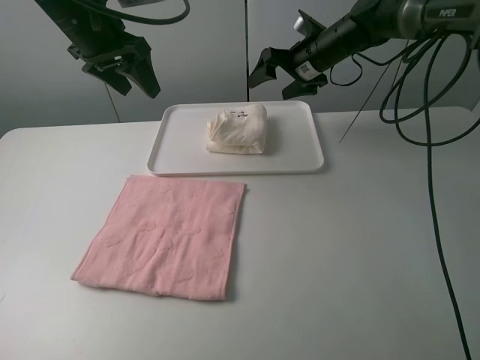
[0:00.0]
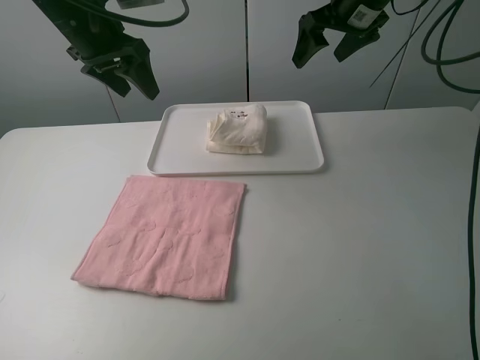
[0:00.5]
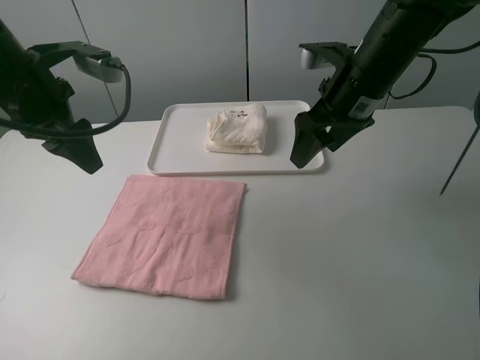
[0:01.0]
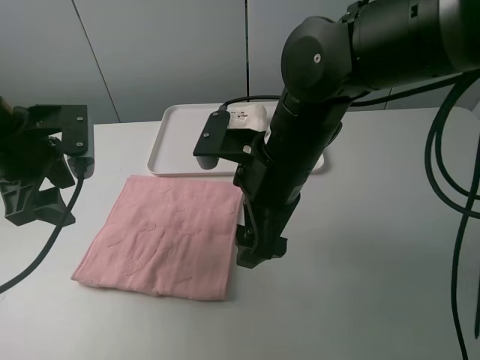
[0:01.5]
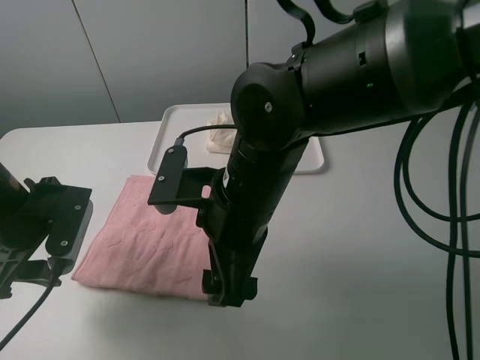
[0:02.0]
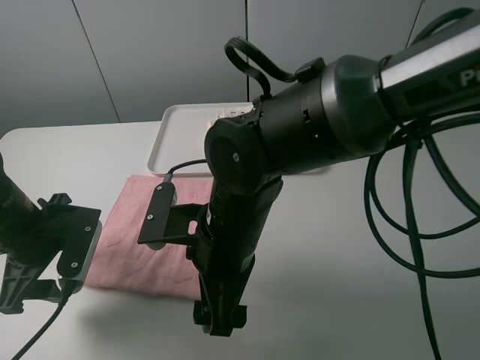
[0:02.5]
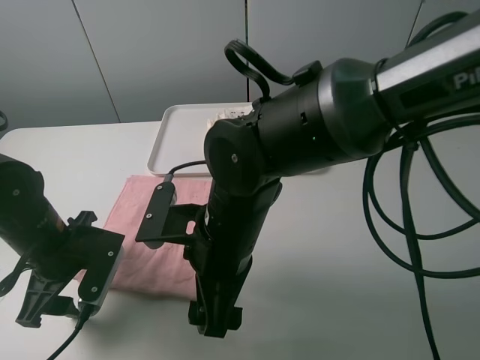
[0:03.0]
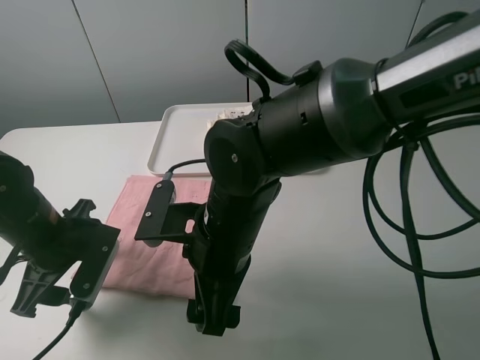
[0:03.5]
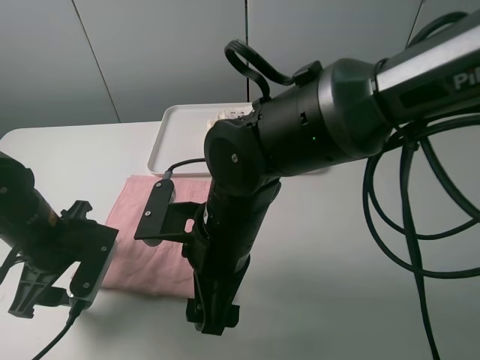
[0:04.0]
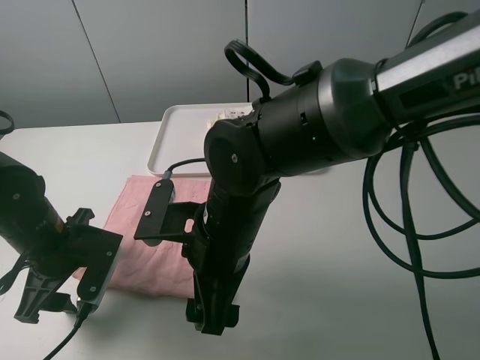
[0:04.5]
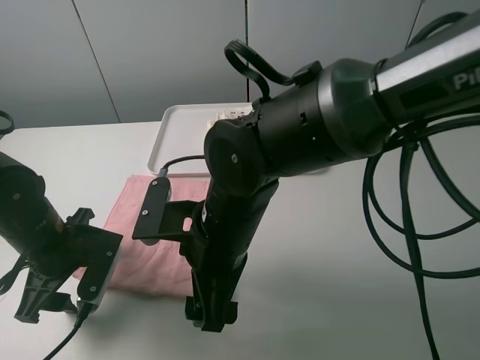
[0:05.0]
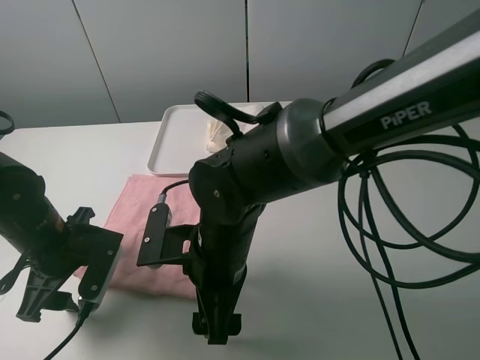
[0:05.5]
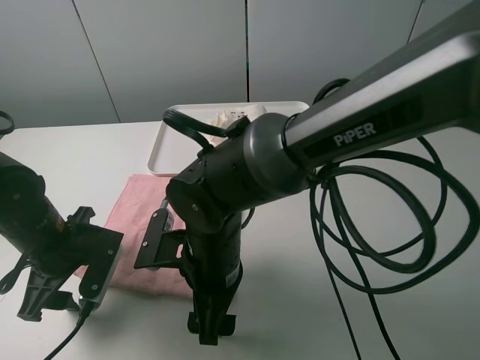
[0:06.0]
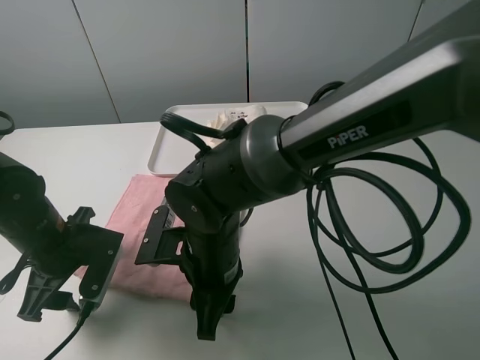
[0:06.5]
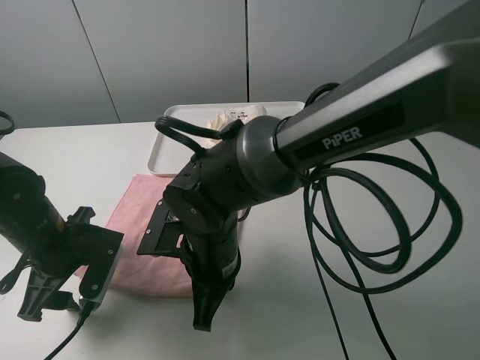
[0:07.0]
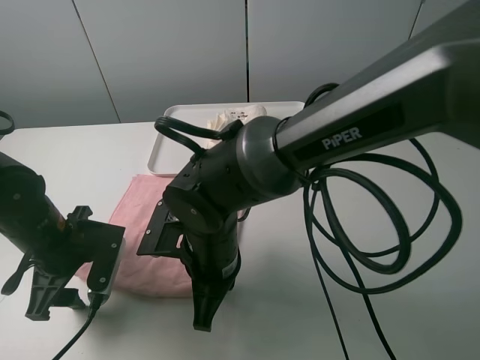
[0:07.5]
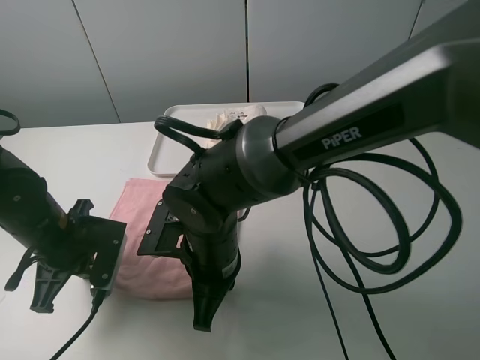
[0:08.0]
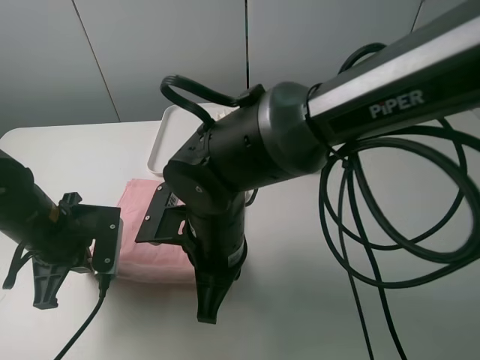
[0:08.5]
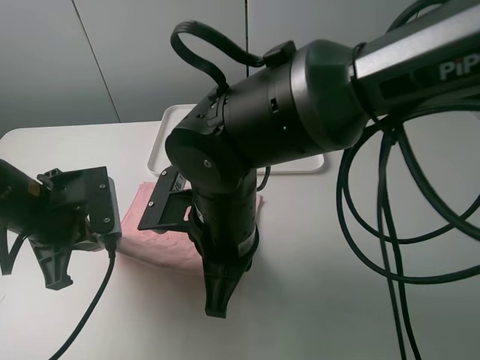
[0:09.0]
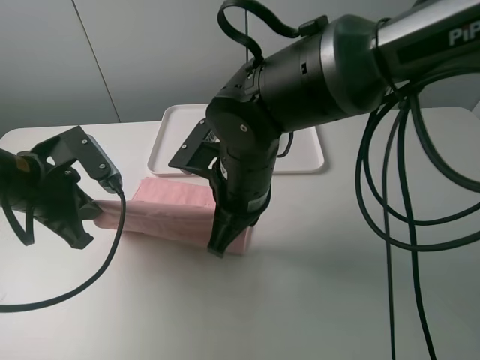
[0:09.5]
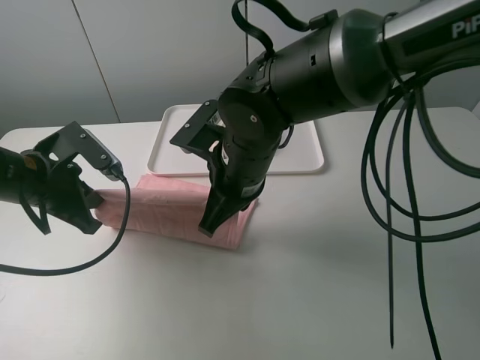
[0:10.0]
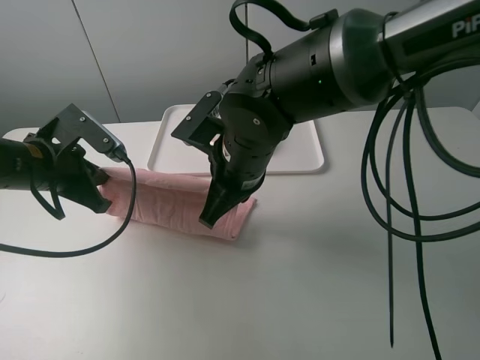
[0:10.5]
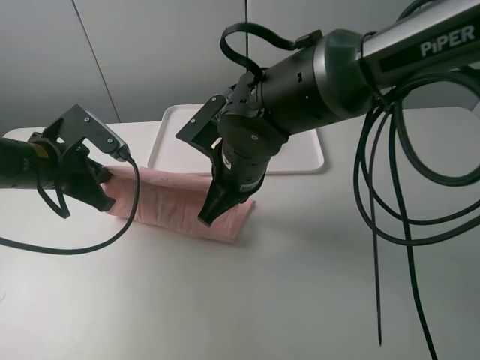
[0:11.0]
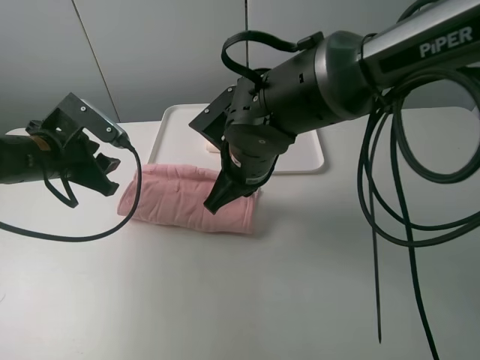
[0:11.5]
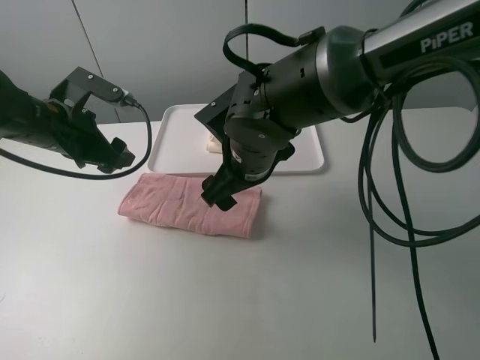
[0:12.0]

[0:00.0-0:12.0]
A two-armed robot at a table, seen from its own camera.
Task of the whole recording: fold one of the towels by two grippers and place it on the tray,then fold another towel by two grippers and place it on the folded towel.
Step, 0:00.5 to 0:07.5: Grasp the pink towel with the left gripper.
Step, 0:08.0 to 0:11.5: Fold the pink towel upwards with the left gripper.
0:00.0 to 0:02.0: The right gripper travels backward and to the left by approximately 35 cm. Meanwhile the left gripper is displaced backward and downward by about 25 cm.
0:02.0 to 0:04.0: The left gripper shifts by roughly 5 cm.
0:06.0 to 0:08.0: The left gripper closes up; the right gripper closes up.
0:08.0 to 0:10.0: The right gripper moves upward and forward, approximately 10 cm. The left gripper shifts roughly 5 cm upward.
0:10.0 to 0:12.0: The right gripper opens, while the left gripper moves forward, about 5 cm, and opens up.

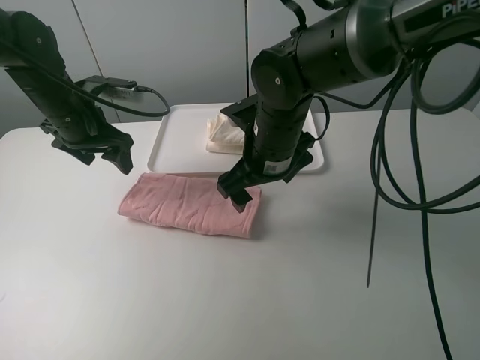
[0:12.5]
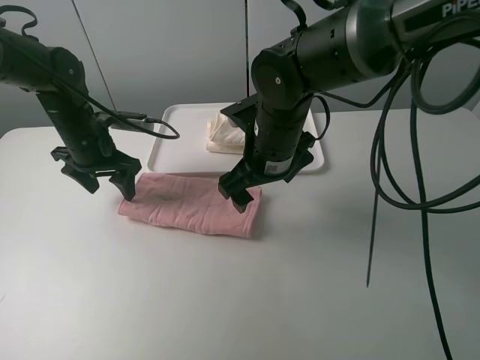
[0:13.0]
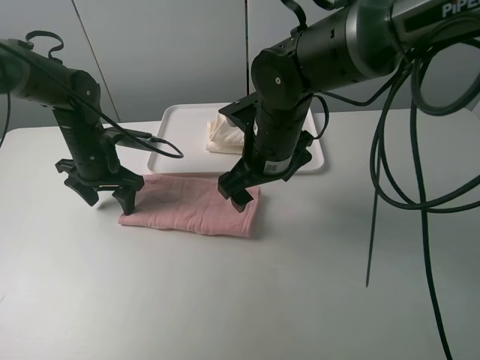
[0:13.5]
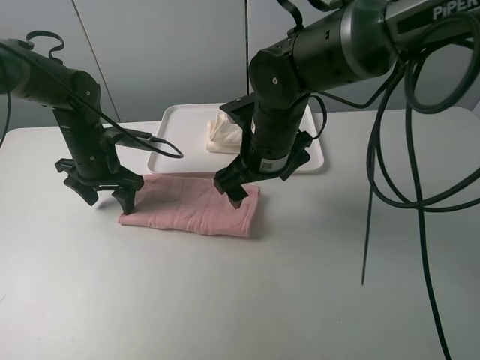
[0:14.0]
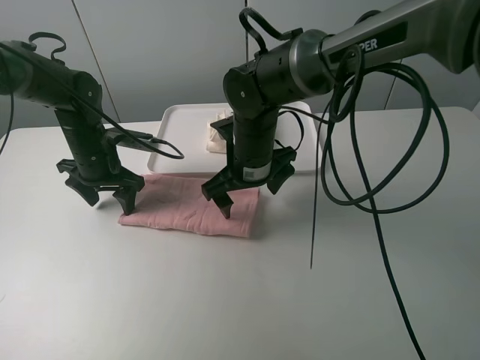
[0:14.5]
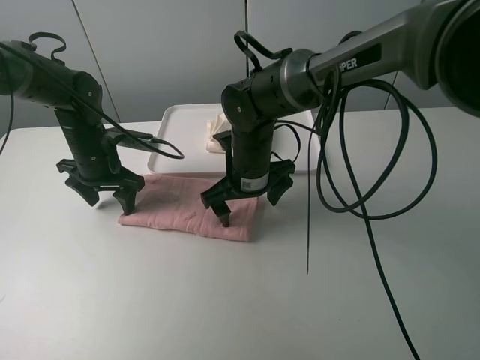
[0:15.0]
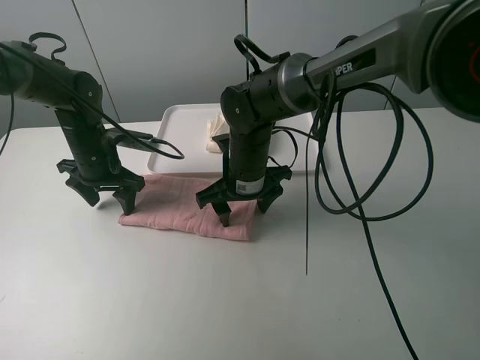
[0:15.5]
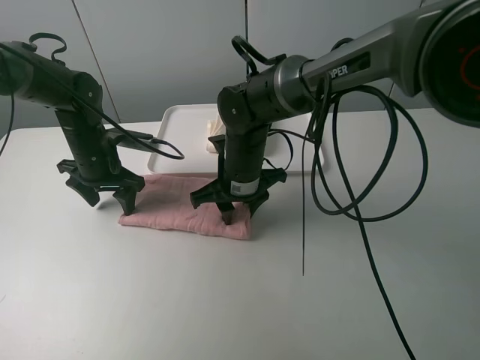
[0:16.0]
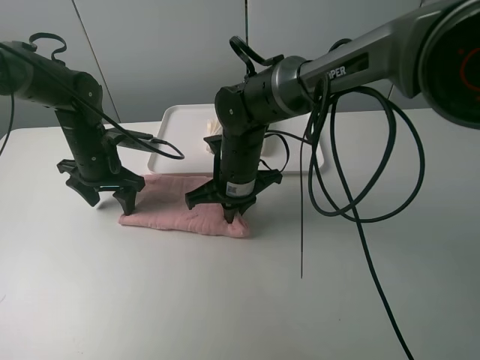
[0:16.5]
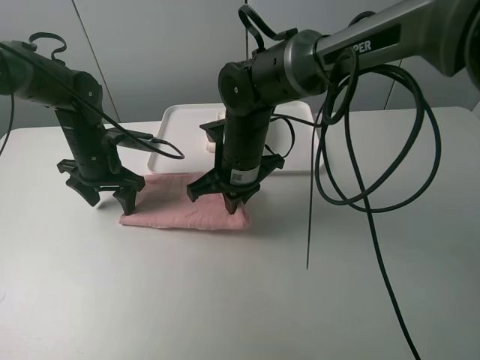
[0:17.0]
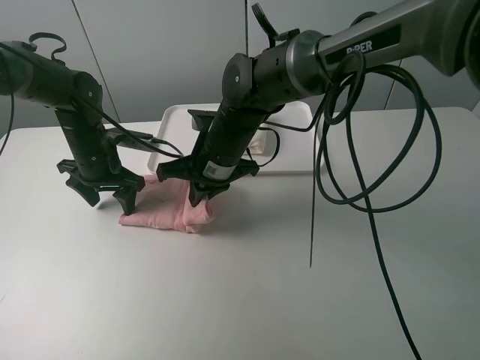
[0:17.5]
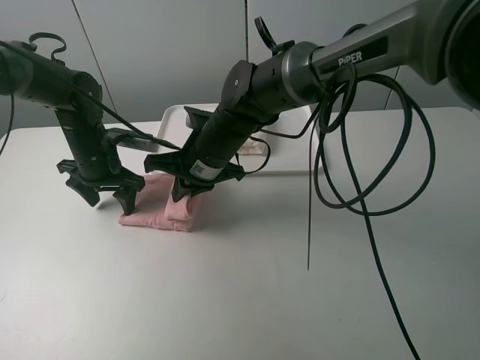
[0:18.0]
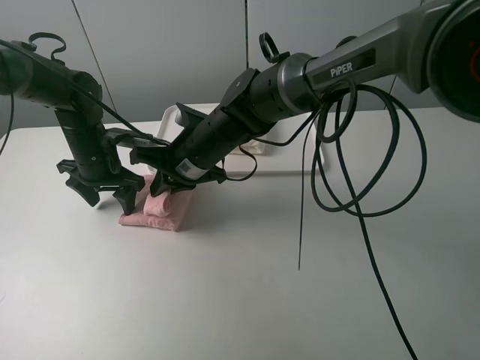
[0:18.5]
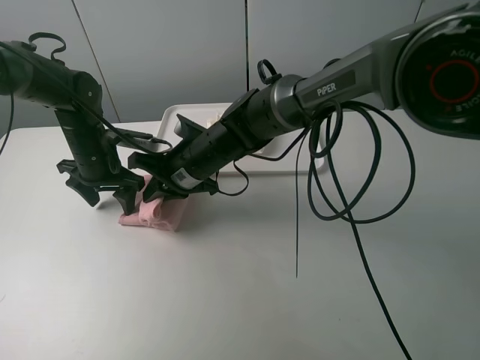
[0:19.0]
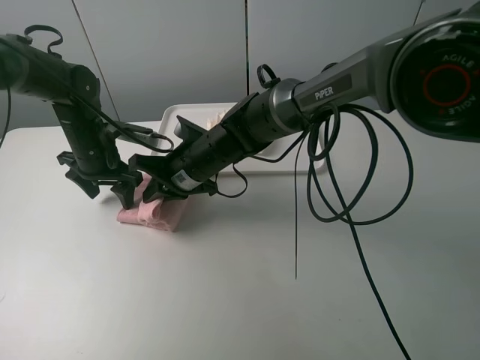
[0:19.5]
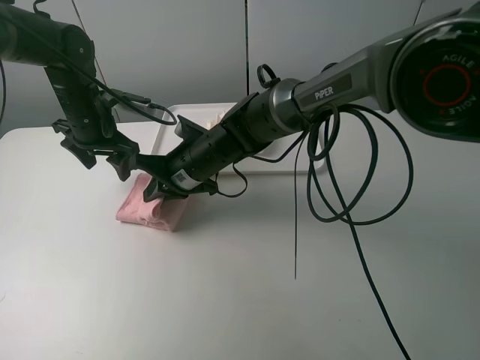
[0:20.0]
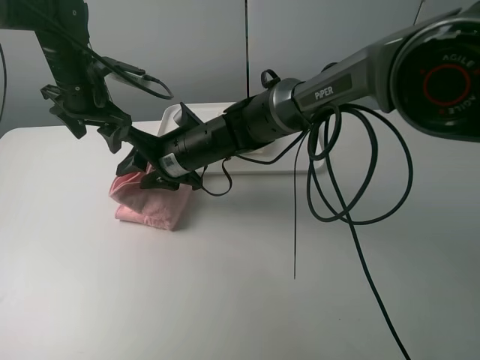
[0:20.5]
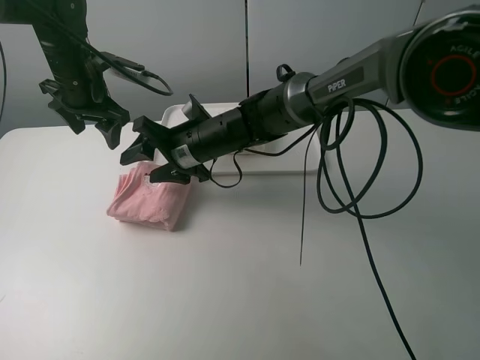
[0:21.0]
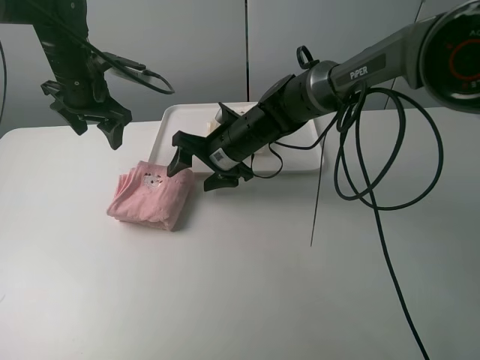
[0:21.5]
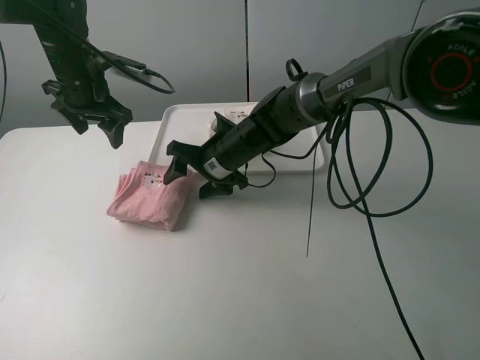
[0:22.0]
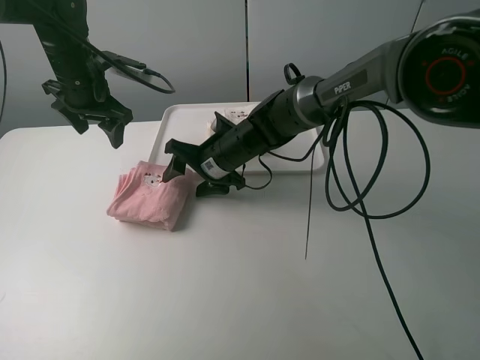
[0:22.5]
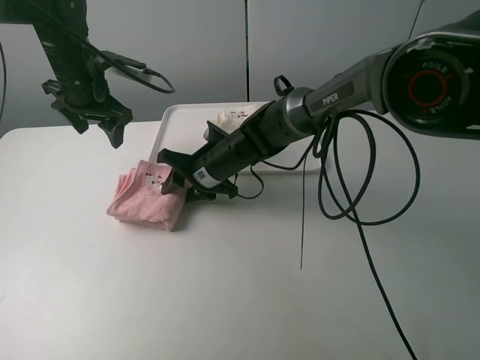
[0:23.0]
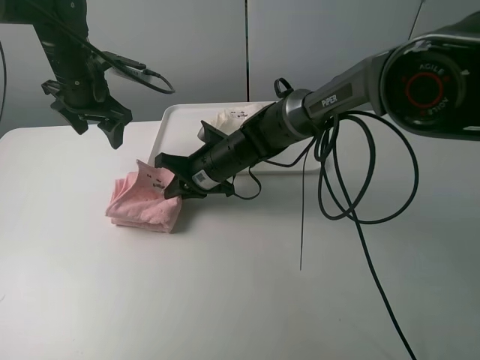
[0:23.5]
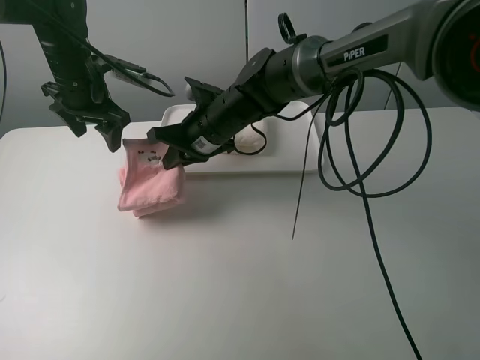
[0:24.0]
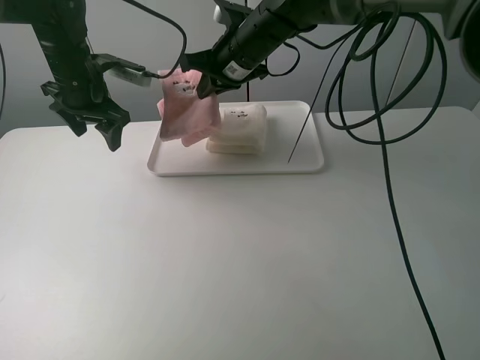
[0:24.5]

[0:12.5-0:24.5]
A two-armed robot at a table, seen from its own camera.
Task of the whole recording: fold one of the towels by two grippers and place it on the tray,then fold another towel by two grippers and place it on the folded towel.
Step, 0:12.5 to 0:13.5: Press the pink towel with the left gripper.
Step, 0:14.0 to 0:16.0: Grasp the pink towel with the right gripper.
Step, 0:16.5 to 0:20.5: Fold the pink towel from right to left with right gripper.
Step, 0:21.0 to 0:23.0: Grasp the pink towel with the right gripper.
0:12.5 to 0:14.5: The right gripper changes place by about 5 cm. Meanwhile the left gripper travels downward by about 10 cm.
0:14.5 to 0:16.5: The right gripper closes.
0:16.5 to 0:18.5: The right gripper moves approximately 5 cm.
0:18.5 to 0:20.5: The left gripper heads upward, covering roughly 10 cm, while the right gripper opens.
0:20.5 to 0:22.5: The right gripper shifts roughly 5 cm to the right.
0:22.5 to 0:24.5: The right gripper travels upward and forward by about 15 cm, and closes up.

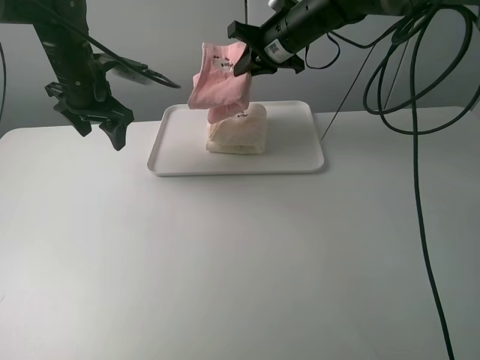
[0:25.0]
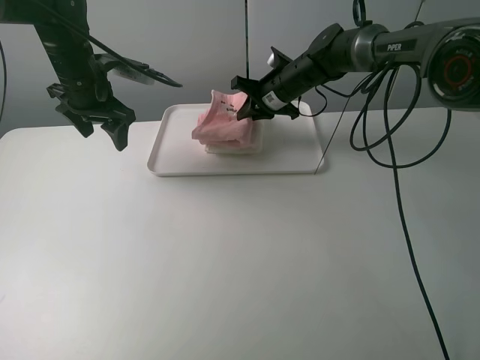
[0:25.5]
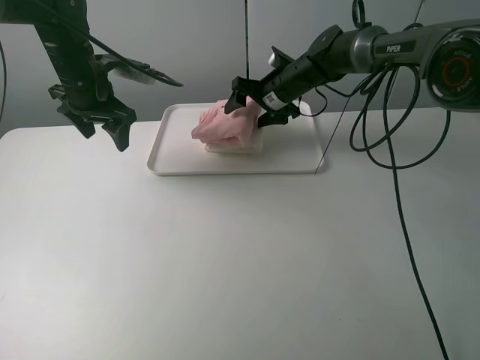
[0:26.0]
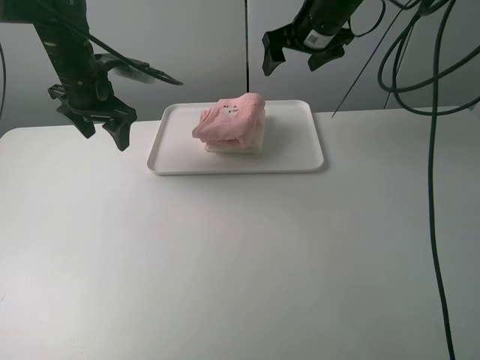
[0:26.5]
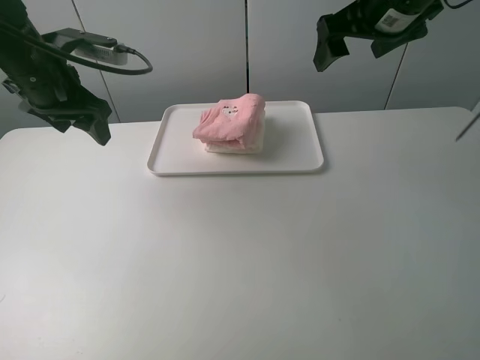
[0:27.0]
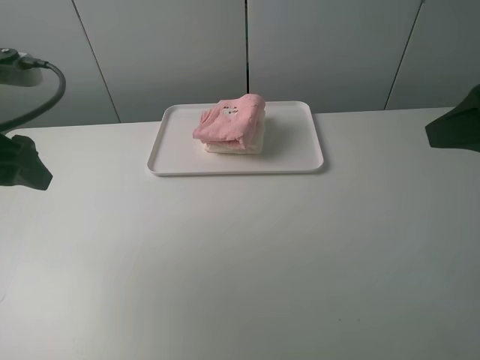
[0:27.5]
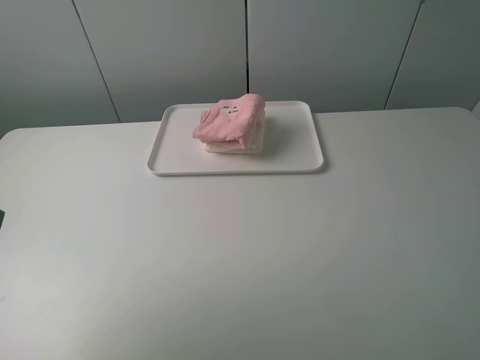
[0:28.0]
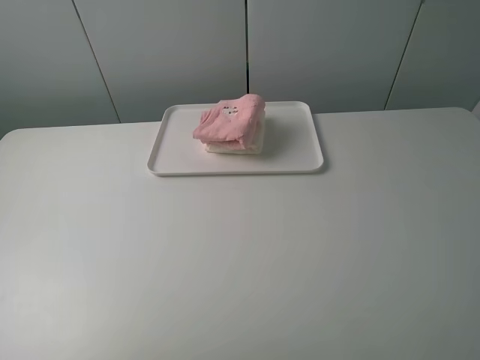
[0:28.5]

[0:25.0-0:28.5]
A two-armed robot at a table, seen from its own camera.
Task of the whole recording: fold one of the towels by two grippers and place it on the tray,then fold another towel by two grippers and place it on the folded towel.
0:25.0 to 0:27.0: The right gripper shifts roughly 20 cm backward, to the right and upward, and opens up, while the left gripper moves backward, some 10 cm.
0:27.0 to 0:28.5: Both grippers move backward, about 30 cm.
